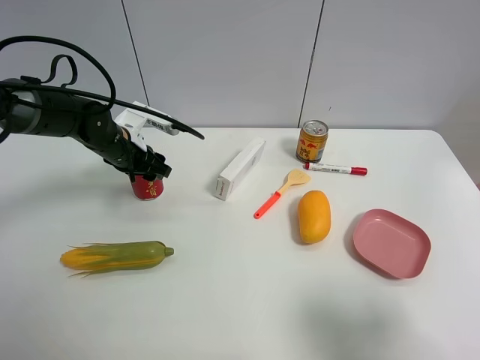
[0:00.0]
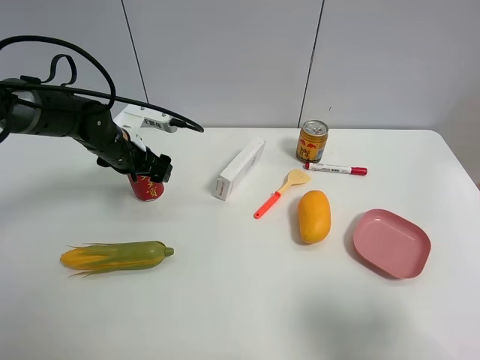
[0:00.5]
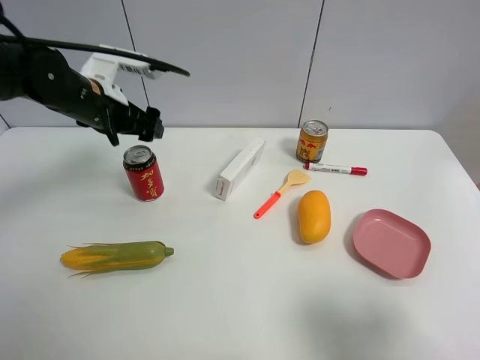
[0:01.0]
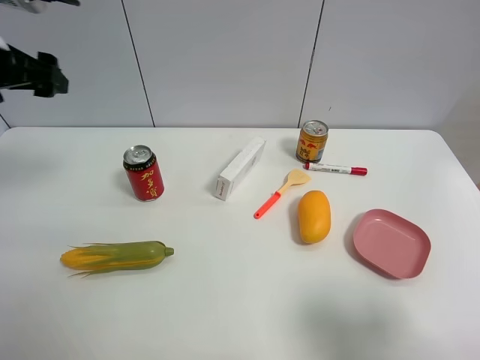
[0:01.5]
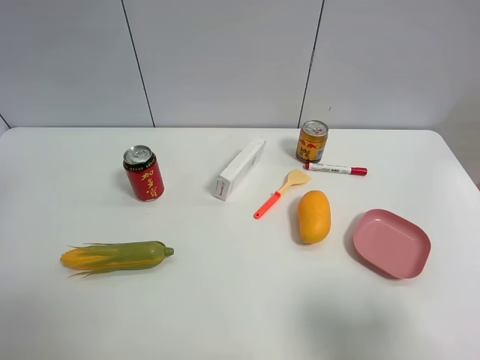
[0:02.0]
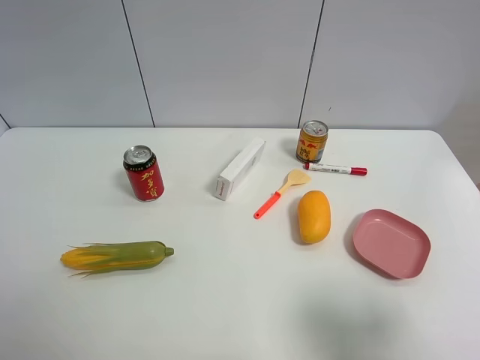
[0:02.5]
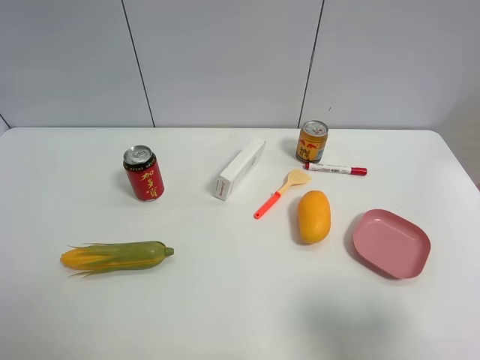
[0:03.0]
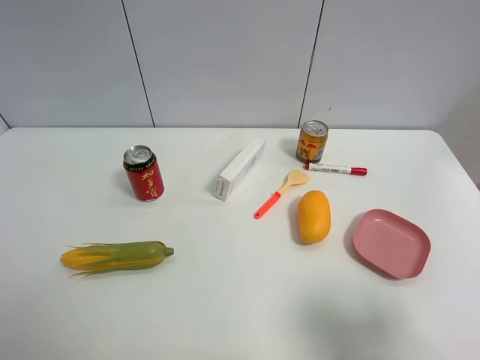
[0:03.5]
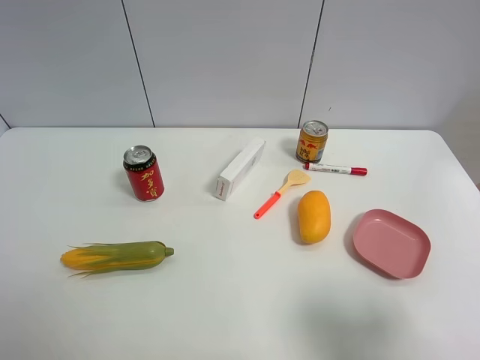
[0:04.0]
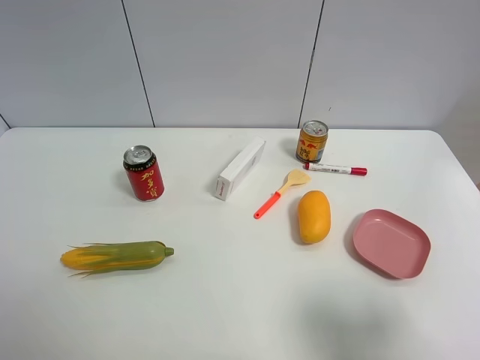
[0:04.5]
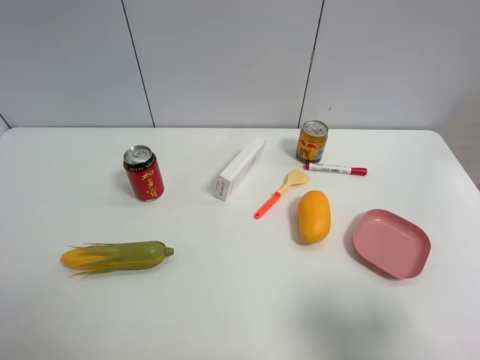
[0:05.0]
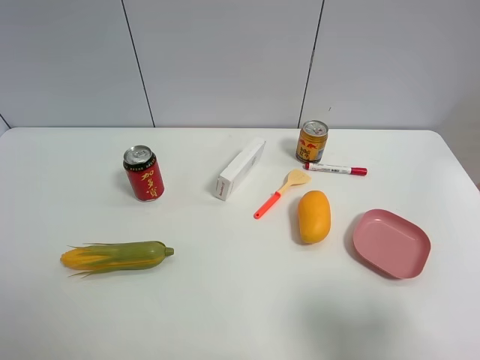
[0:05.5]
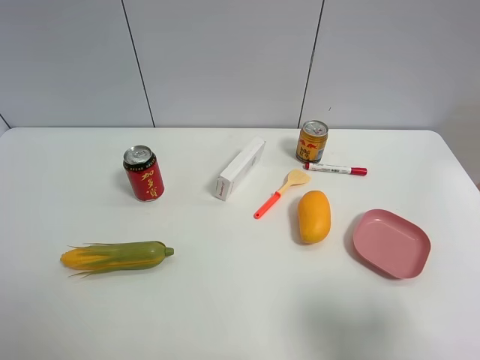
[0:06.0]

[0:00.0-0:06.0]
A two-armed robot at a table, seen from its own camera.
Task of the whole recording: the gripper move the object.
0:00.0 to 0:02.0: The left gripper goes approximately 35 cm upward, backward and to the left, and opens up.

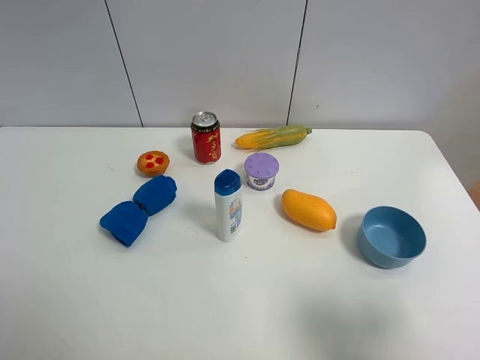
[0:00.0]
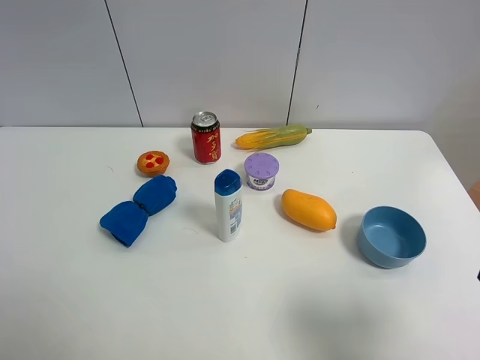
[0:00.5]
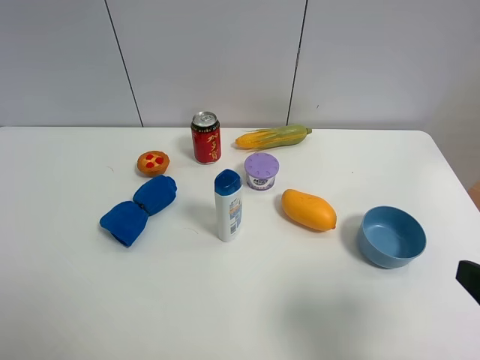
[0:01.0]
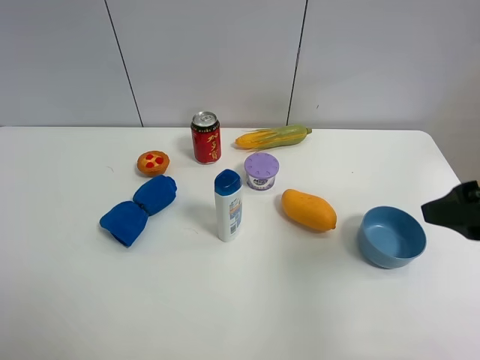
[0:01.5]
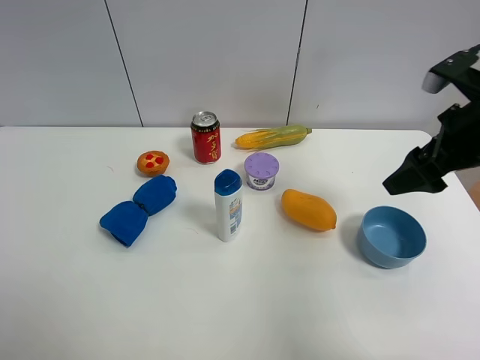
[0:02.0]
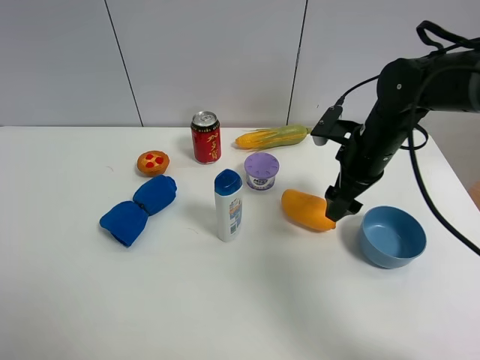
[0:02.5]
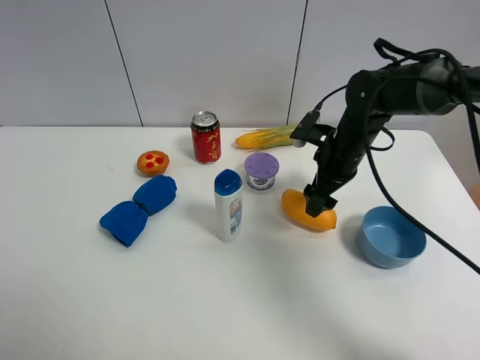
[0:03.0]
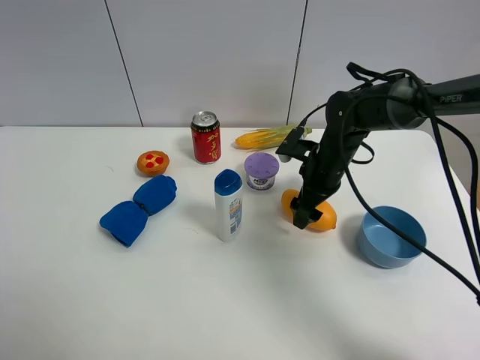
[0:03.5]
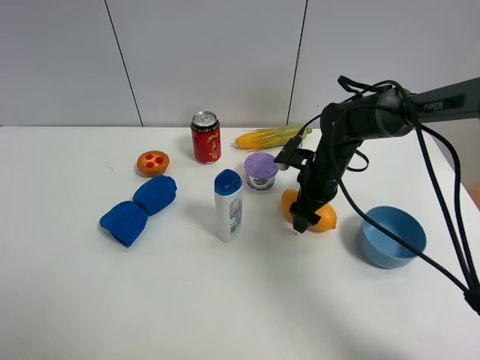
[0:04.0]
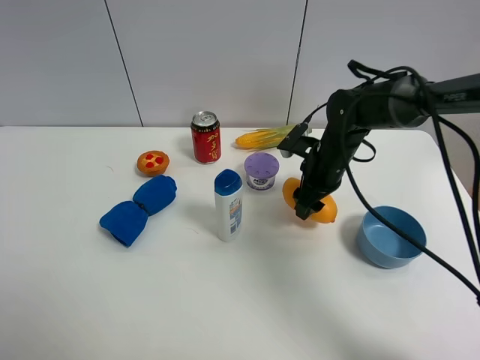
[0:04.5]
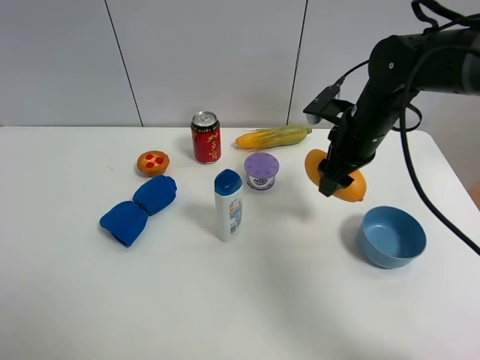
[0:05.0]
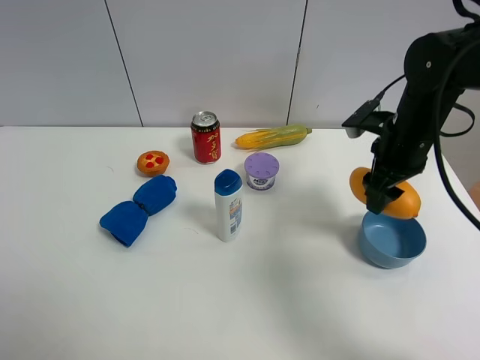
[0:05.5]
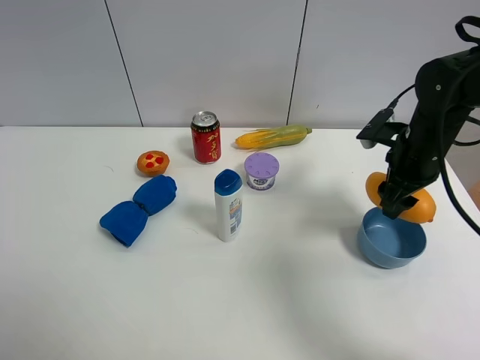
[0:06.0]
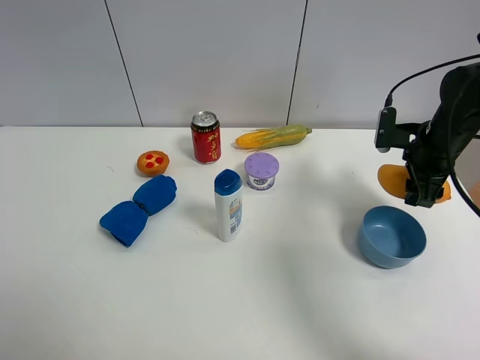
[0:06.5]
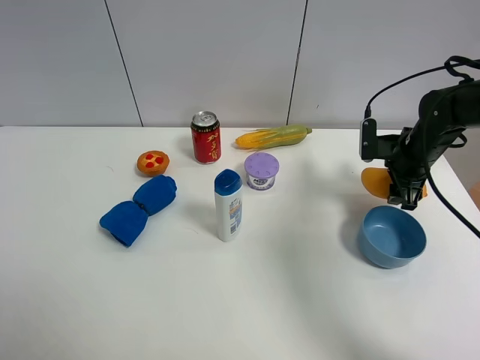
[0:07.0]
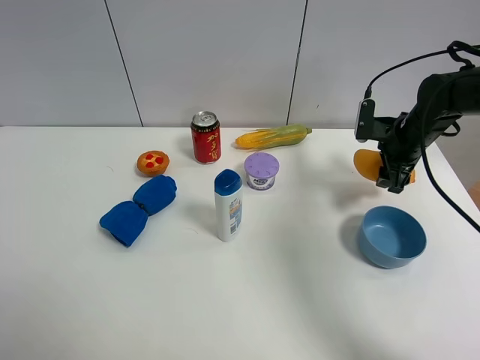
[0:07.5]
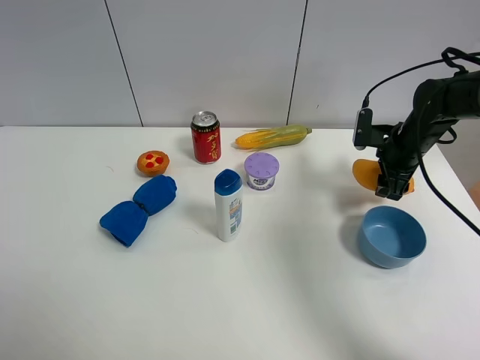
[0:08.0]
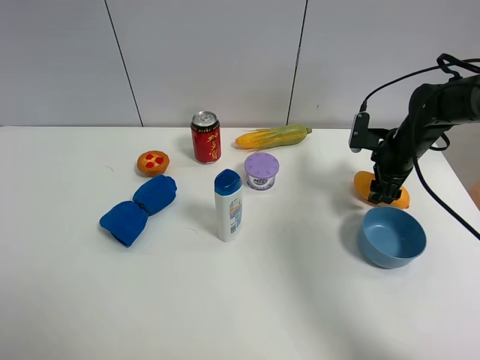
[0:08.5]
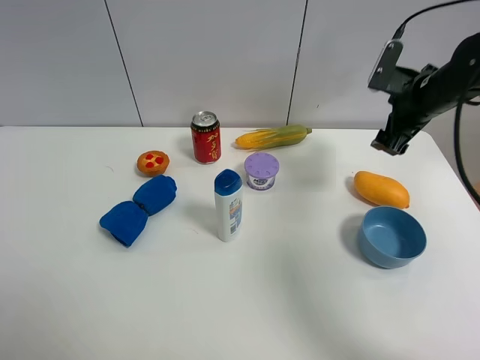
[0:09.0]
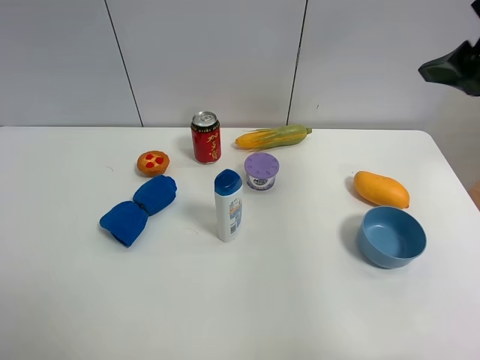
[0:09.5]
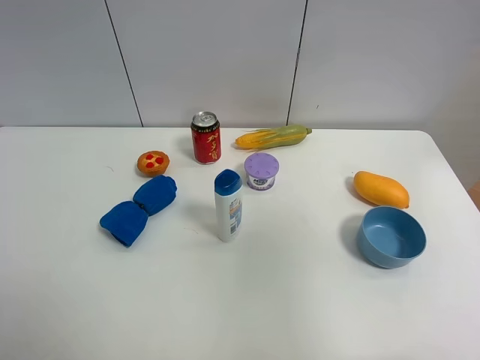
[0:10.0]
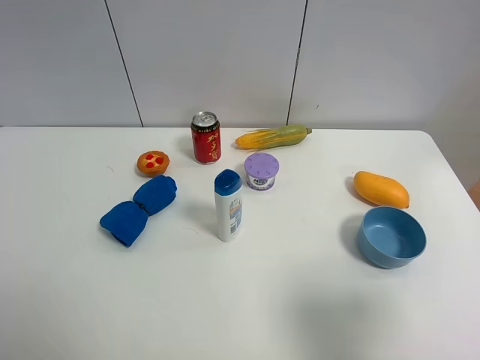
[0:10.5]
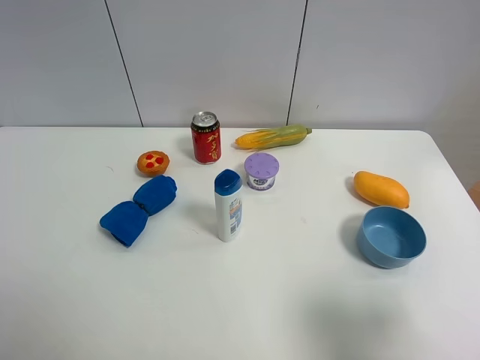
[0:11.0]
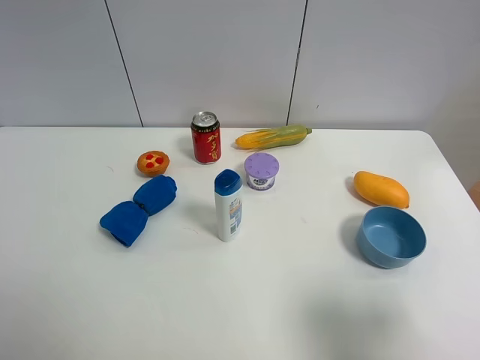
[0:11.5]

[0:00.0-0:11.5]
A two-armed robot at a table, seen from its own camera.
Task of the whole recording: the gripper move the object.
Step, 0:00.0 to 0:04.0: Grasp the mango with the right gripper.
Step, 0:04.5 to 0:08.5: Place the mango on the table with the right gripper.
0:00.0 to 0:02.0: The right gripper travels forward by about 25 cm.
0:02.0 to 0:04.0: The right gripper is displaced downward, to the left and forward by roughly 25 cm, and closes its fingers.
0:04.0 to 0:06.0: The right gripper shifts roughly 15 cm to the right and upward.
0:06.0 to 0:07.5: The right gripper moves forward, about 5 cm.
0:07.5 to 0:09.5: The right gripper is displaced upward and backward by approximately 30 cm, and opens.
0:09.5 to 0:11.5: The right gripper shifts roughly 25 cm backward and downward.

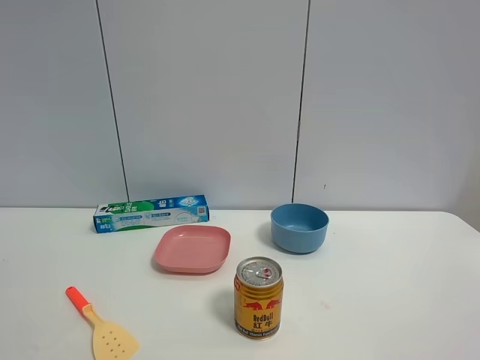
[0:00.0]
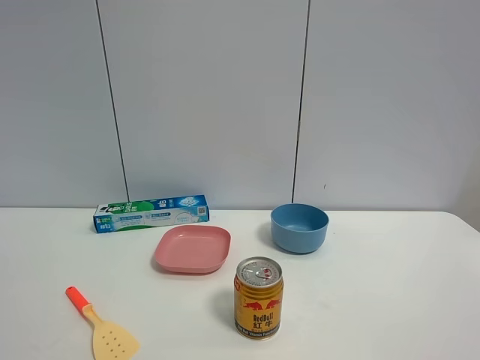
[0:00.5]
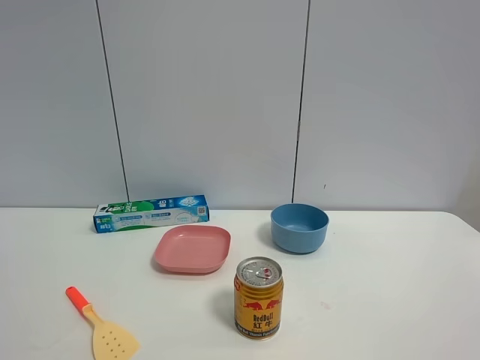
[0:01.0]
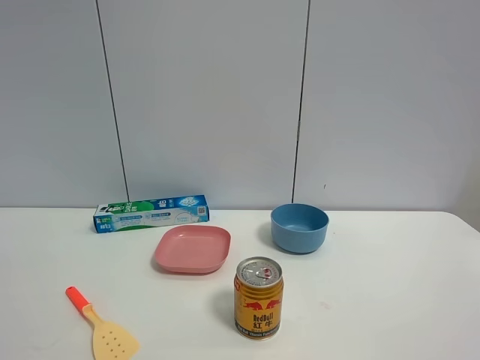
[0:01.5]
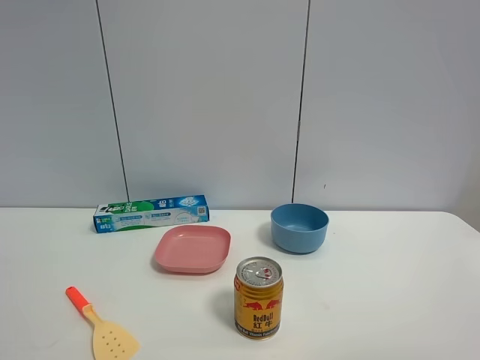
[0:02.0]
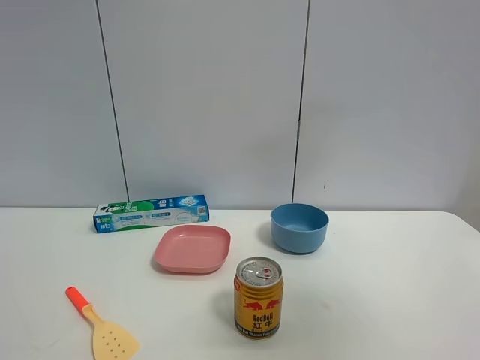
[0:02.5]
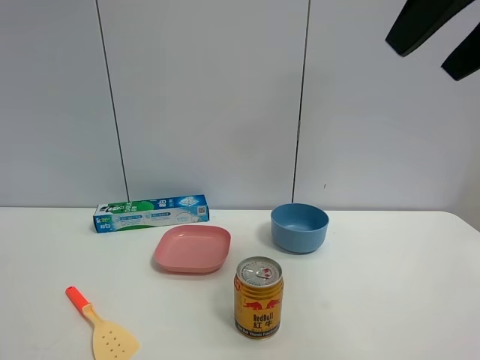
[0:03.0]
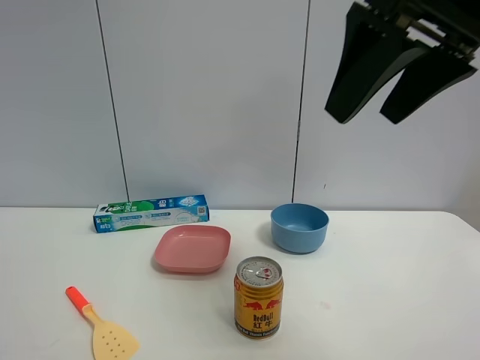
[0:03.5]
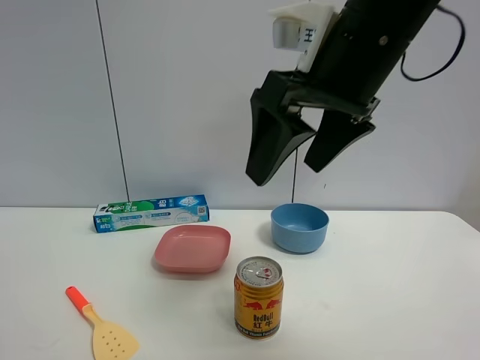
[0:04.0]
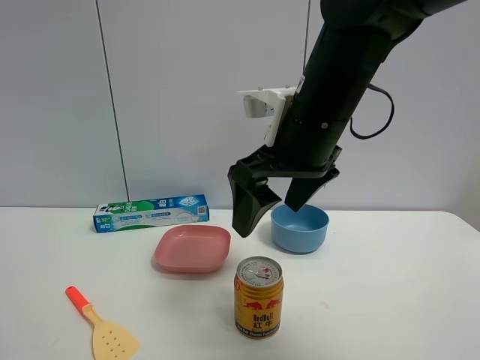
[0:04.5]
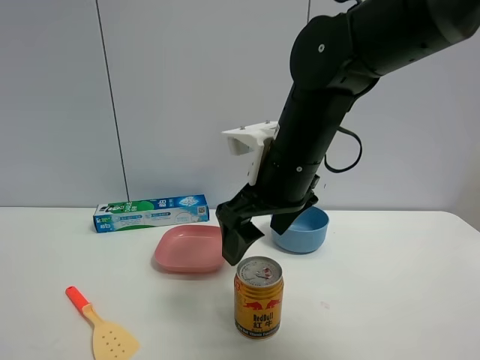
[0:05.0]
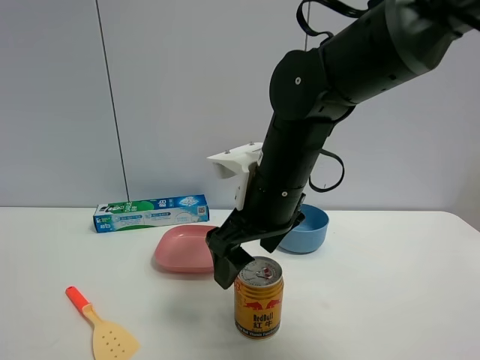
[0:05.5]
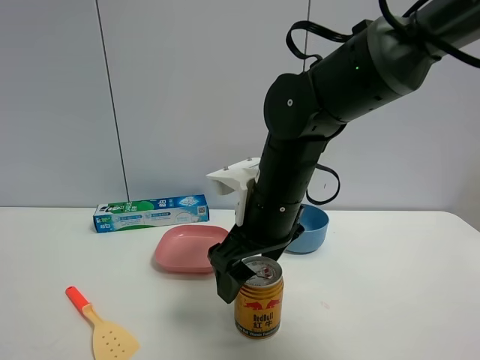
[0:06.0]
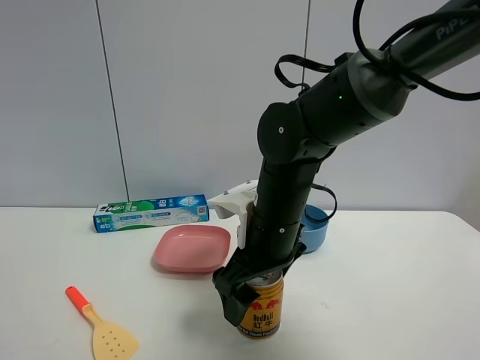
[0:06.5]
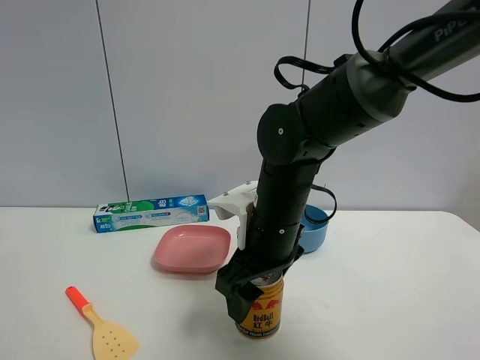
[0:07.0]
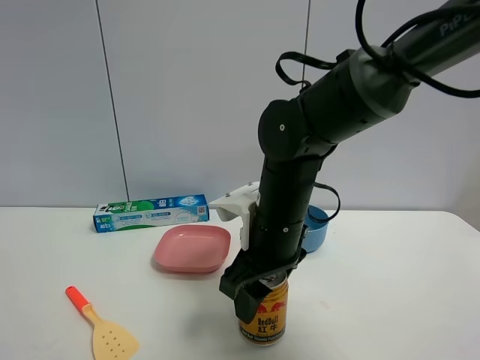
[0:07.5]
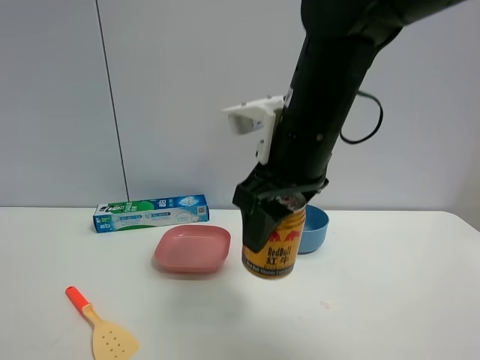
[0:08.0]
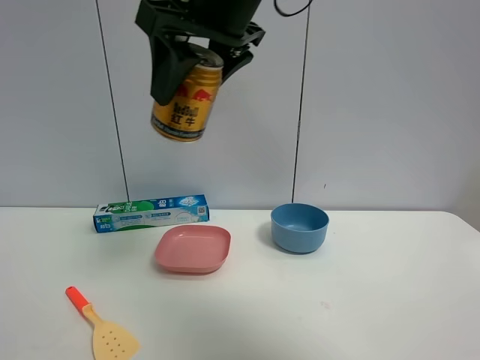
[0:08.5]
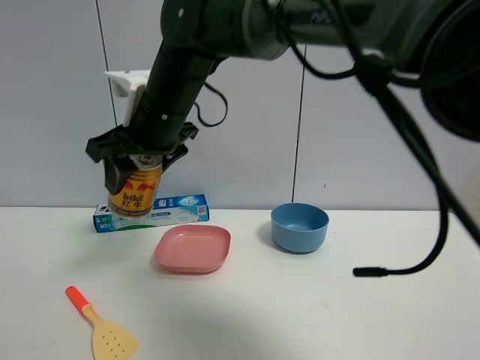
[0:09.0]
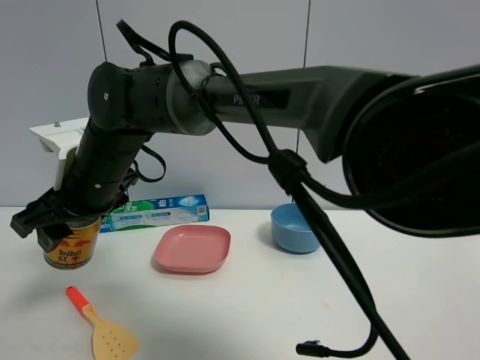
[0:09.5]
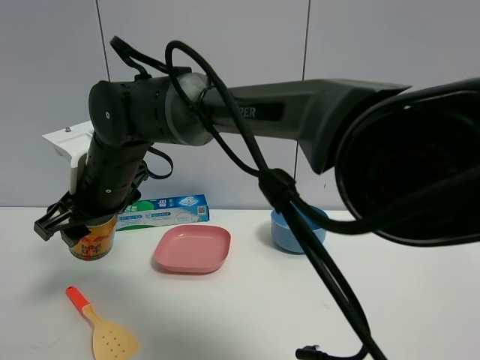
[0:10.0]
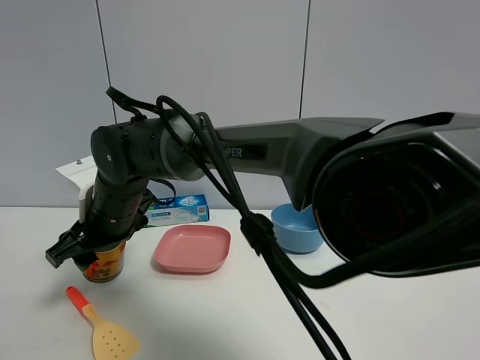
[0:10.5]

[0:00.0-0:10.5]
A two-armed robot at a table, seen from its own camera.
Task of the whole recording: the gripper move the object.
Step, 0:00.0 to 0:07.0: Grasp the red bull with the right gripper.
0:02.0 to 0:04.0: The right gripper heads forward and to the left, covering about 30 cm.
0:04.0 to 0:06.5: The right gripper goes approximately 20 cm downward.
0:06.5 to 0:08.5: The right gripper travels upward by approximately 25 cm, and closes its fingers.
0:08.5 to 0:10.5: The right gripper shifts some 25 cm downward and to the left.
